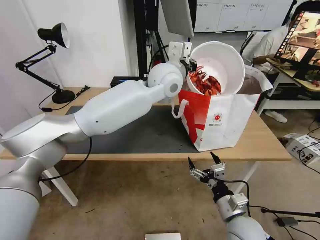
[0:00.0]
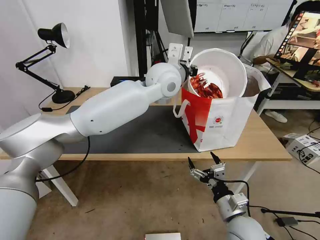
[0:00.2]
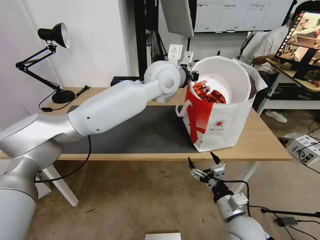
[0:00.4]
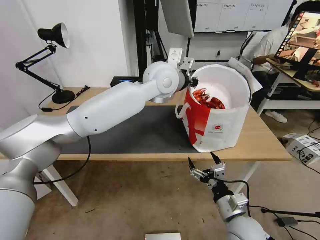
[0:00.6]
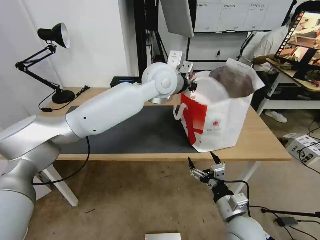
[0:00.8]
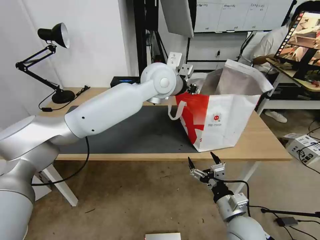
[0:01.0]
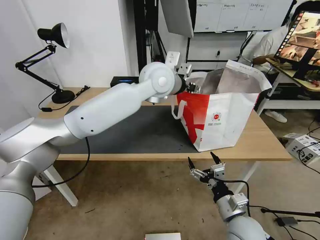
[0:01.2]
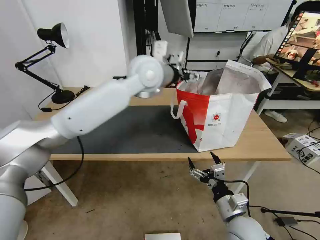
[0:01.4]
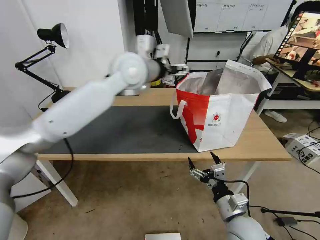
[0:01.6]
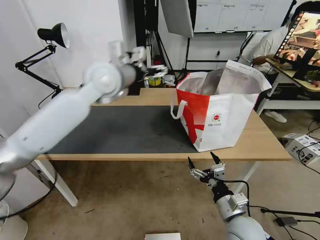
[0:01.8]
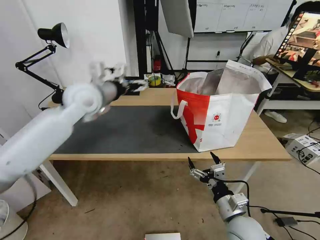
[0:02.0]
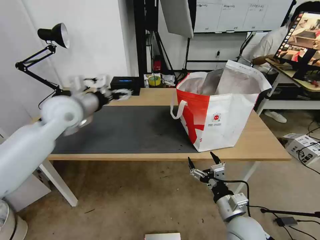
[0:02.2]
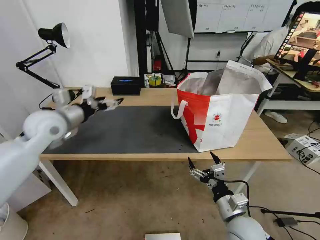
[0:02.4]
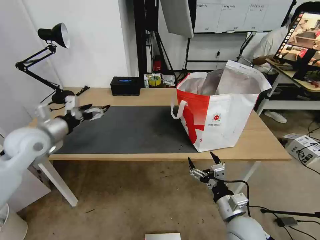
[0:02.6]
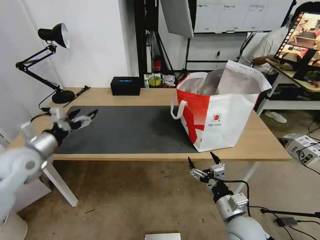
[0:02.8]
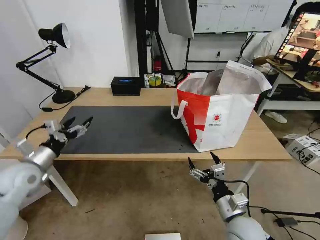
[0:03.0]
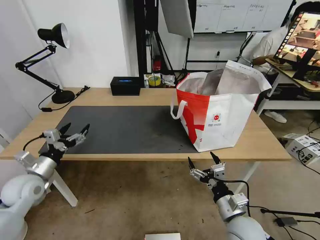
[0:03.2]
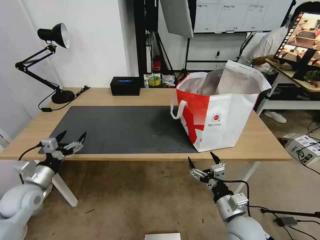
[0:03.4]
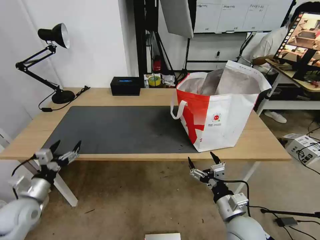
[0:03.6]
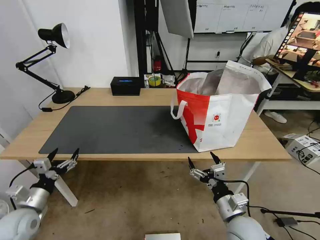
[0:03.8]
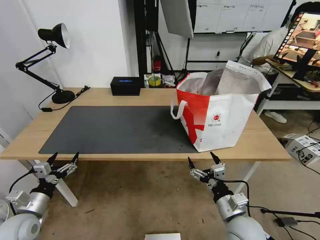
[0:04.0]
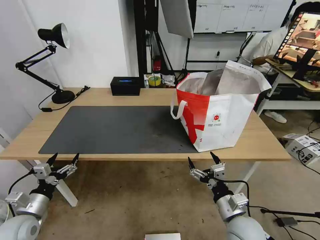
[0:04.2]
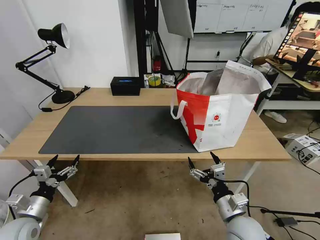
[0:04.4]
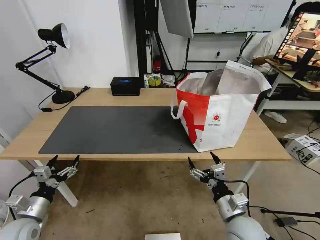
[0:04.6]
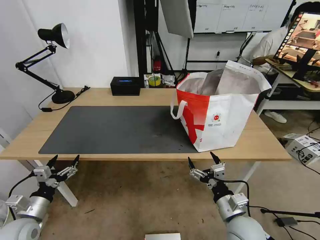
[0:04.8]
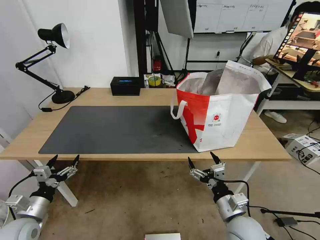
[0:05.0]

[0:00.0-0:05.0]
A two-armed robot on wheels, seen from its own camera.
Task of the whole recording: Pick up the trash from the table and place it into the takeout bag.
0:00.0 to 0:01.6: The left gripper goes some 10 cm to the left, and opens.
0:01.6 to 0:03.4: The left gripper shifts roughly 50 cm to the left, downward and backward.
0:03.4 to 0:05.0: The left gripper travels backward and downward by about 10 cm.
